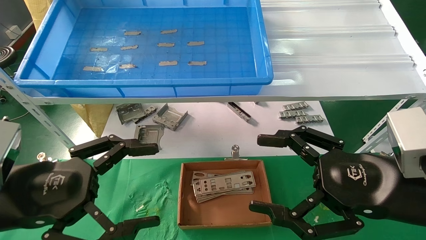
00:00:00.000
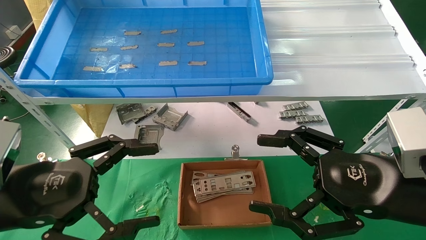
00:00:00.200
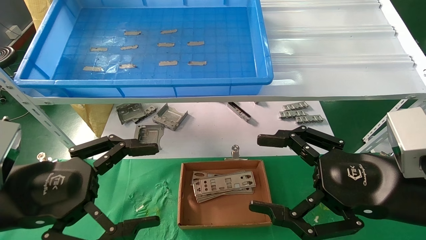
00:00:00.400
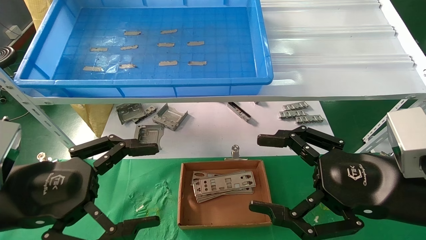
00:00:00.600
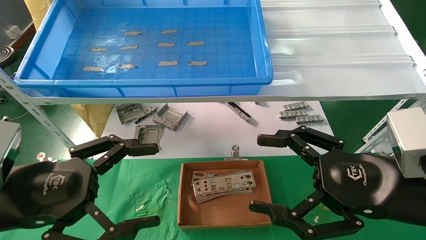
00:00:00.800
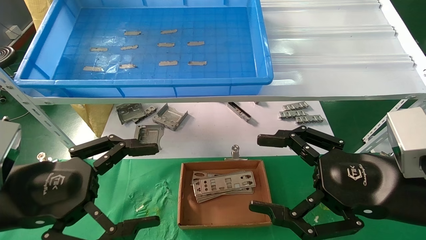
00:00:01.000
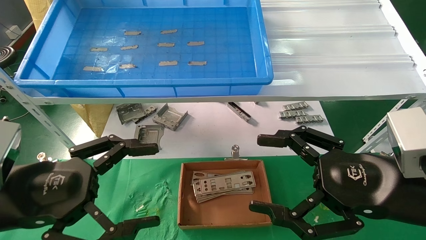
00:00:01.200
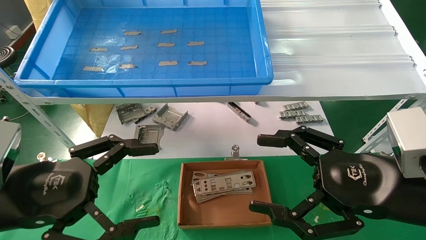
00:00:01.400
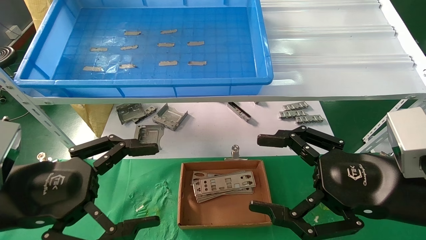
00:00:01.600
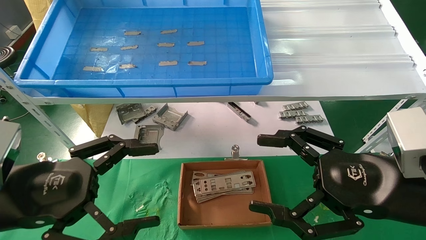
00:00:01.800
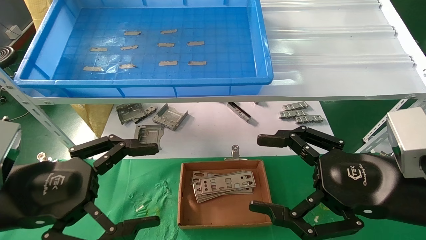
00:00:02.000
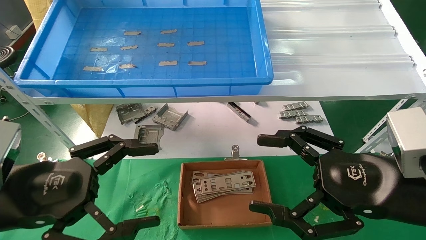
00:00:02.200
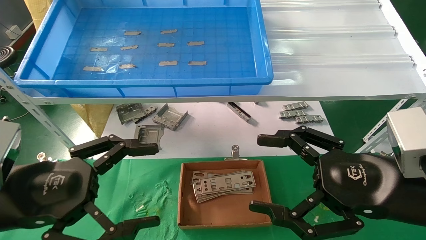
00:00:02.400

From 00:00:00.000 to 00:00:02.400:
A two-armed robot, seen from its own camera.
Task of the whole recording: pick up the parts on the tray and put them in the cardboard box.
From 00:00:00.000 to 00:00:02.400: Neither gripper changes place.
